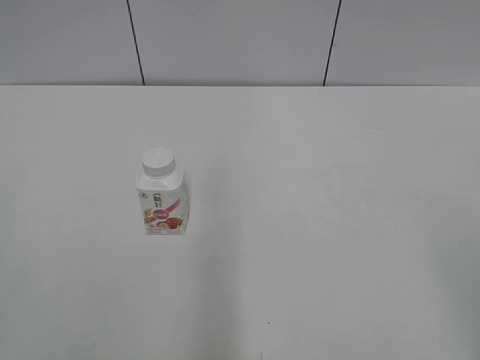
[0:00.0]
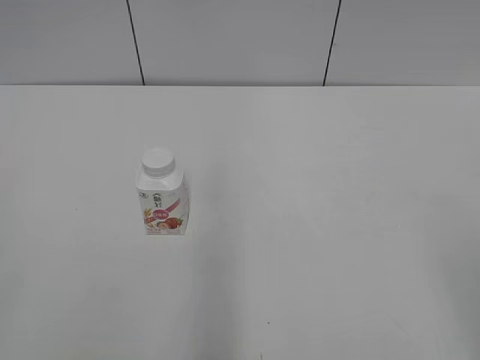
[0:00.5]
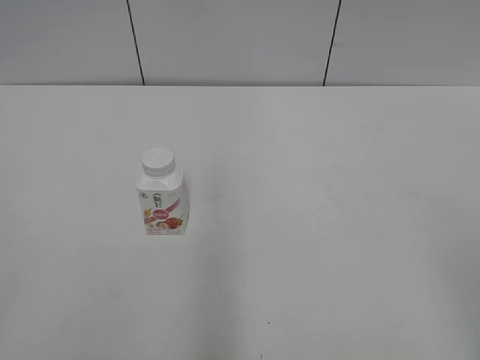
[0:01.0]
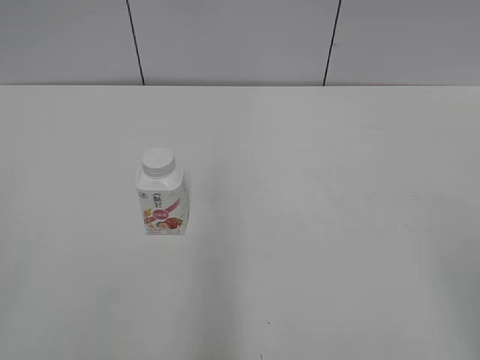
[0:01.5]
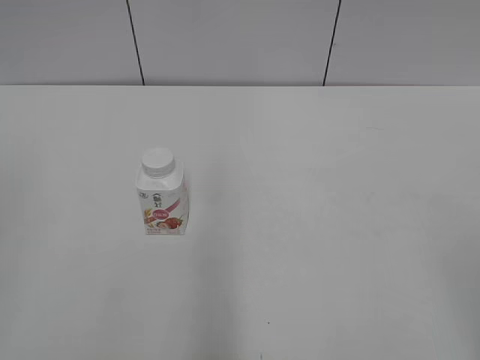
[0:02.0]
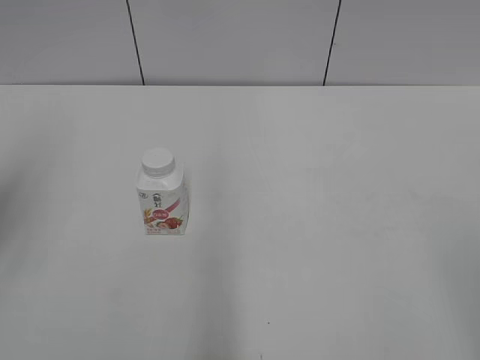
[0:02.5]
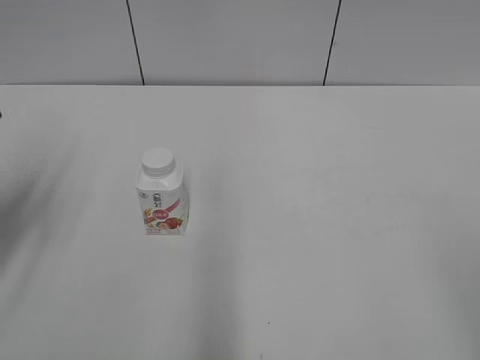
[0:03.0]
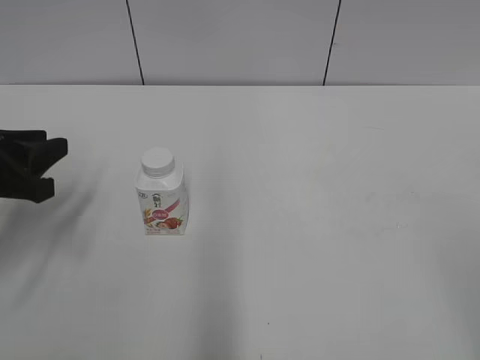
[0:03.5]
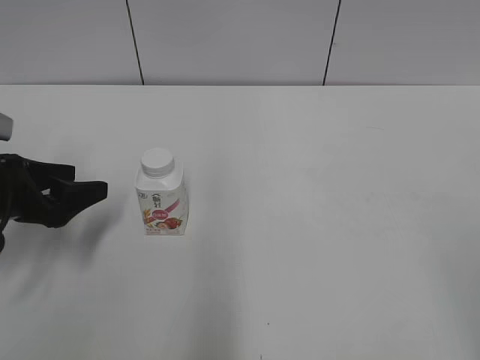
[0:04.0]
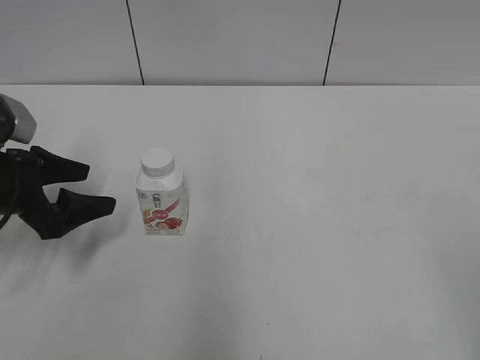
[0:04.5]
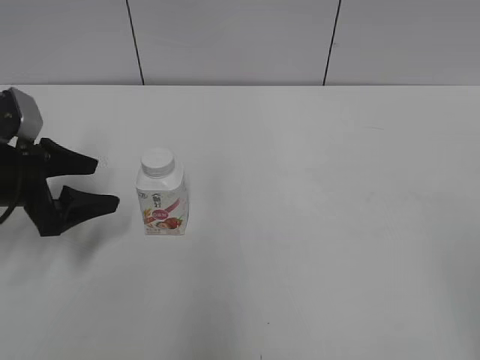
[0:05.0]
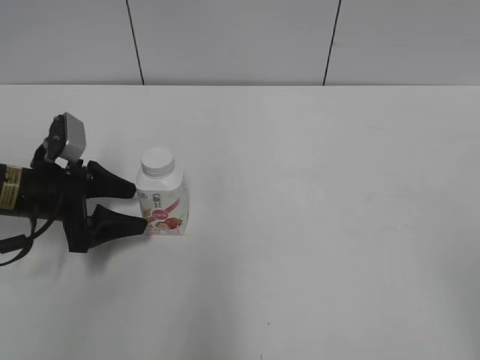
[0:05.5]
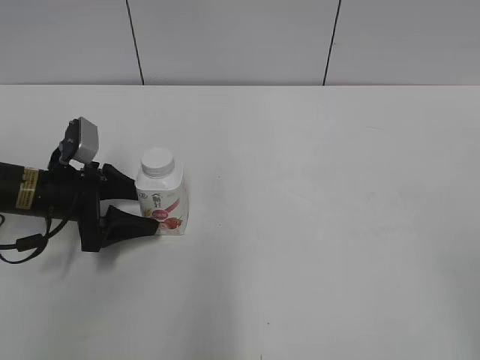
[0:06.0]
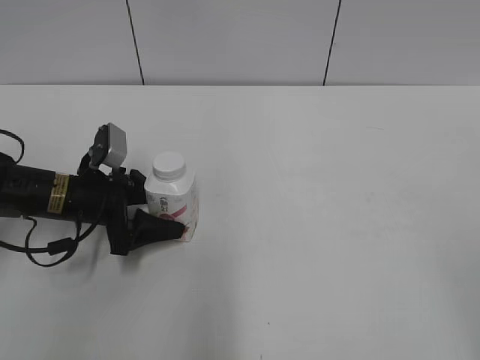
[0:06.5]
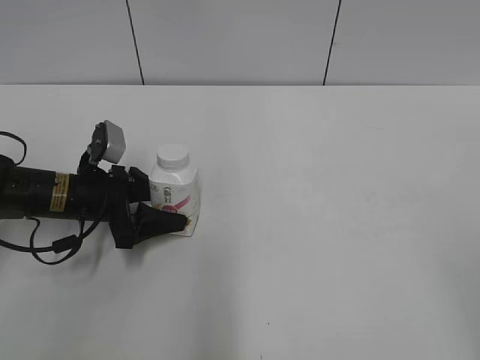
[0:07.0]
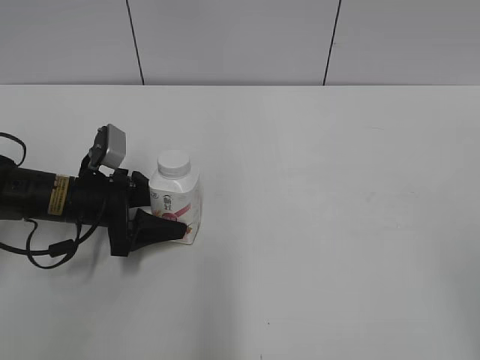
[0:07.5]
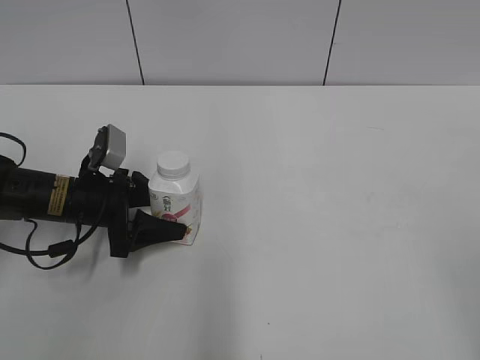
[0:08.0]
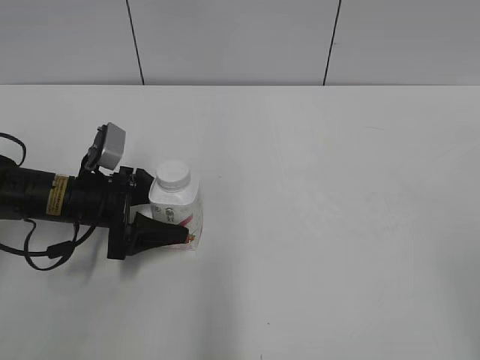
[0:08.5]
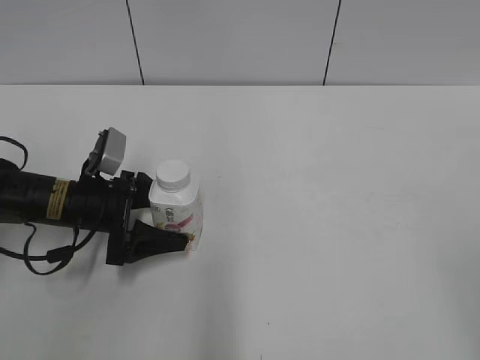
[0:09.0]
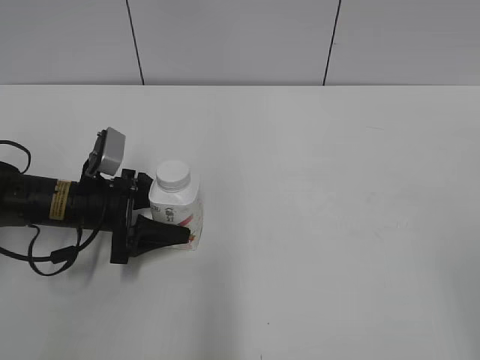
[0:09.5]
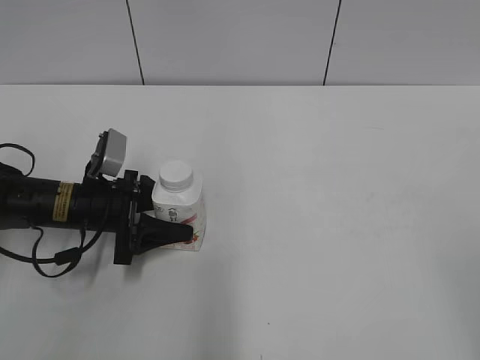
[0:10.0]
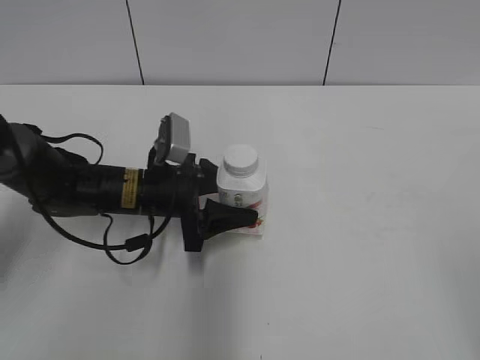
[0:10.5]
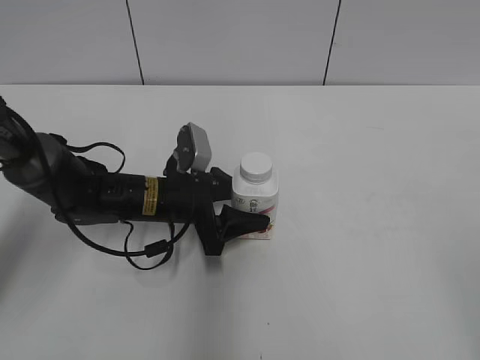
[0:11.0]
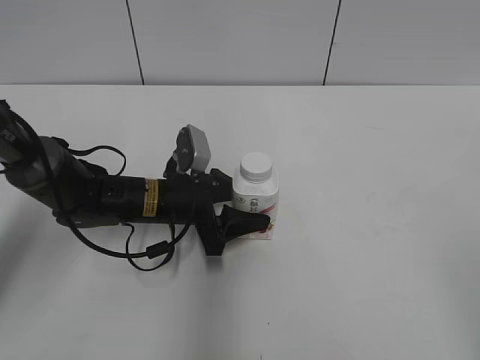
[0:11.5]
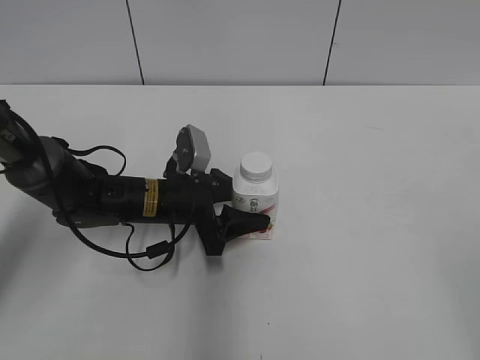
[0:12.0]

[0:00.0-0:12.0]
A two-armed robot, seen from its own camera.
Step, 0.0 to 10.0 s: Grab the Yili Changqing with the left hand.
2.0 to 4.0 s: The left gripper travels forward and downward by approximately 30 cm, and opens.
4.0 to 6.0 s: The left gripper shifts roughly 5 cm forward.
6.0 to 10.0 s: The grippers stay close to where they were, moving slightly.
10.0 to 12.0 s: The left gripper shifts roughly 10 cm to the right.

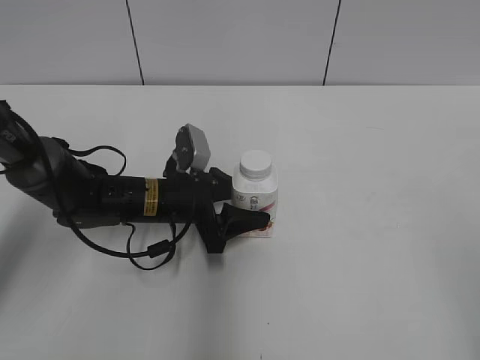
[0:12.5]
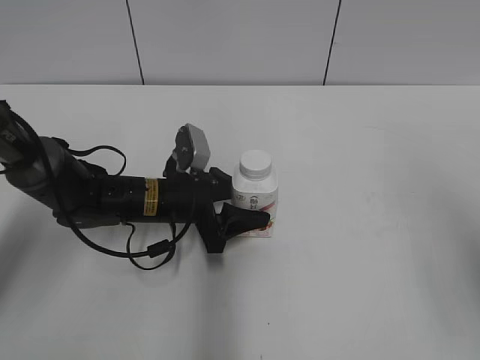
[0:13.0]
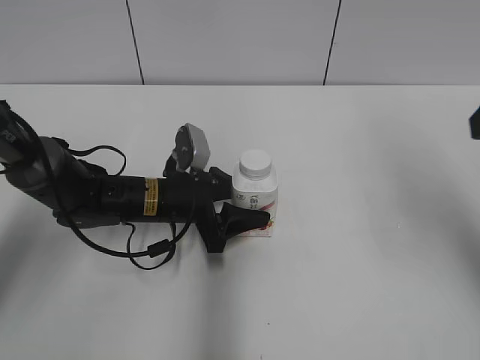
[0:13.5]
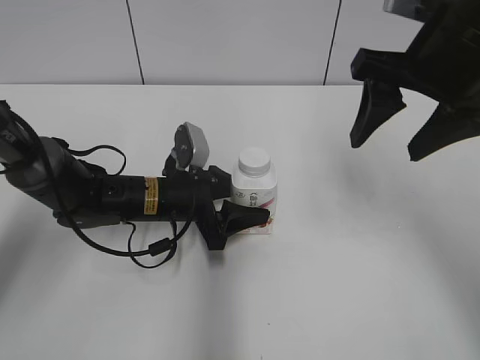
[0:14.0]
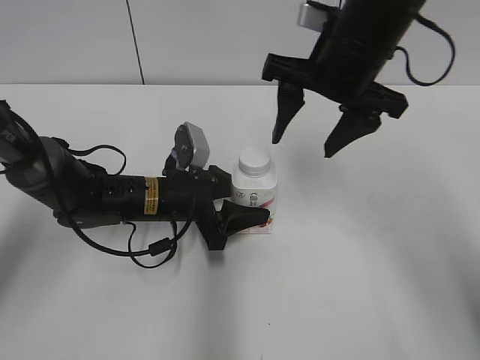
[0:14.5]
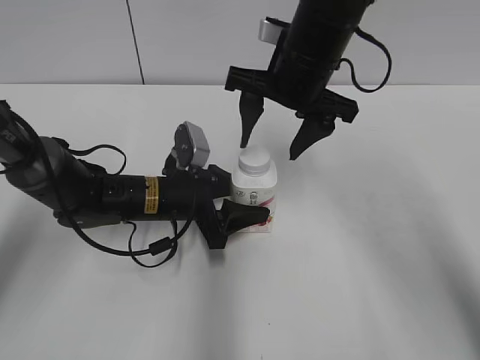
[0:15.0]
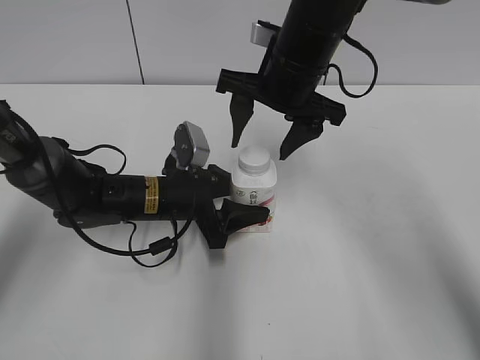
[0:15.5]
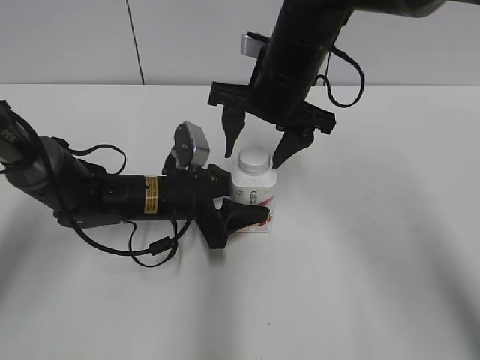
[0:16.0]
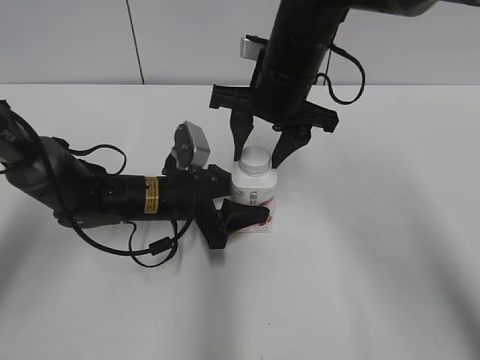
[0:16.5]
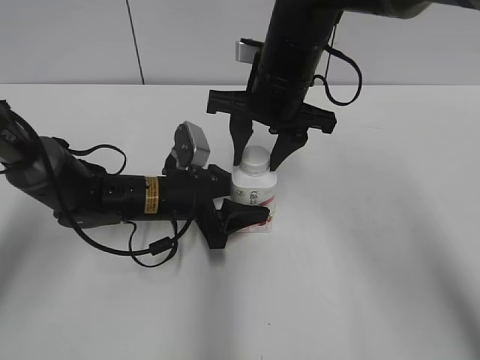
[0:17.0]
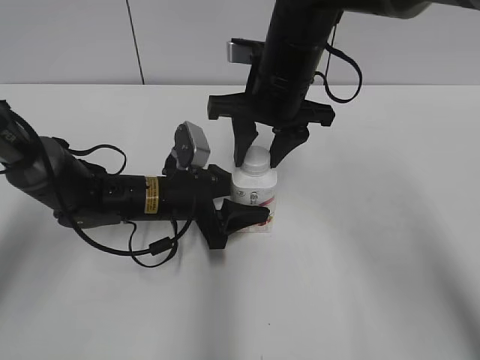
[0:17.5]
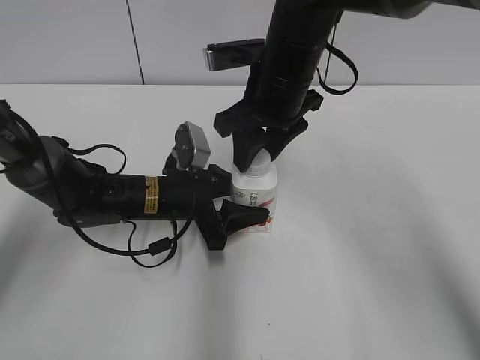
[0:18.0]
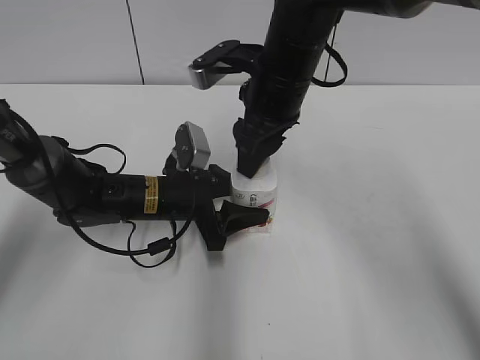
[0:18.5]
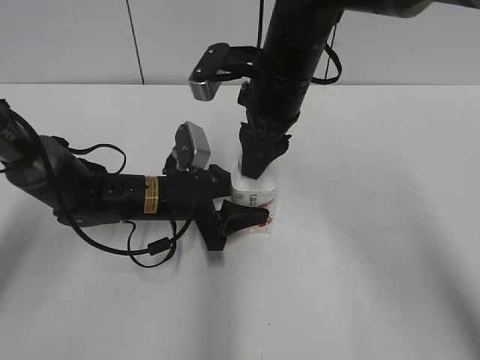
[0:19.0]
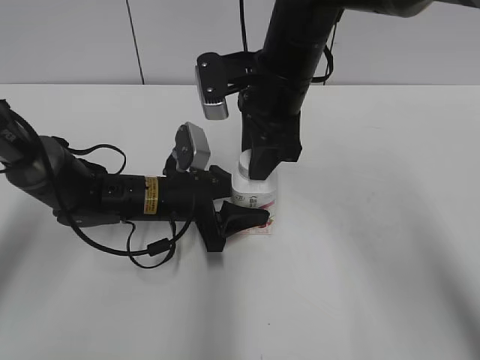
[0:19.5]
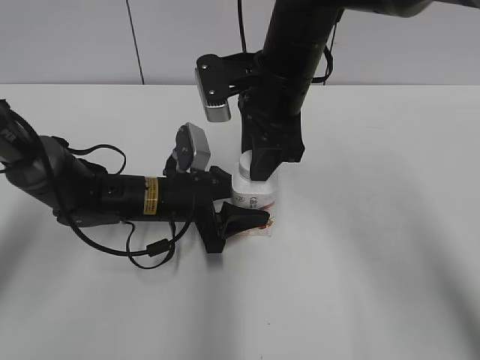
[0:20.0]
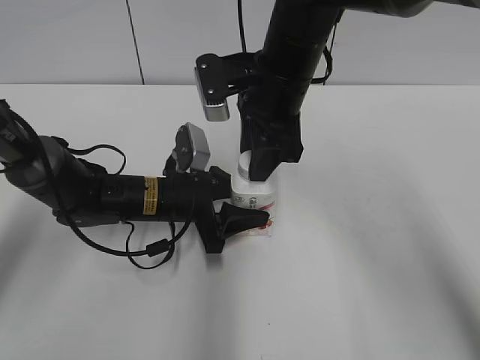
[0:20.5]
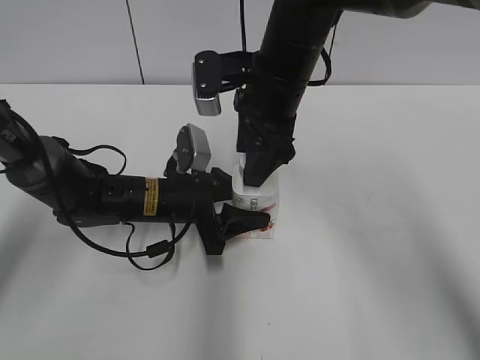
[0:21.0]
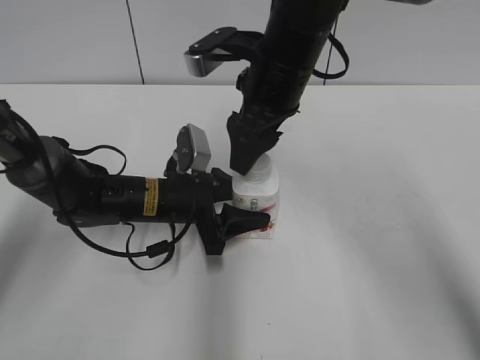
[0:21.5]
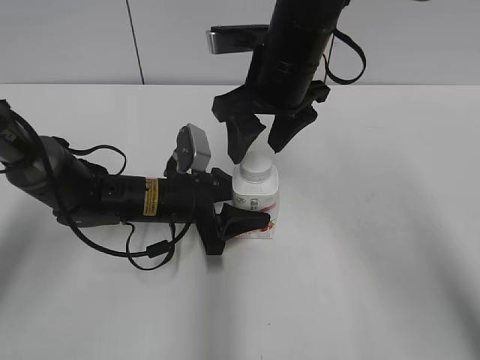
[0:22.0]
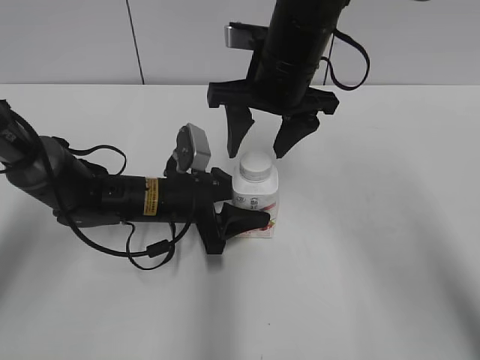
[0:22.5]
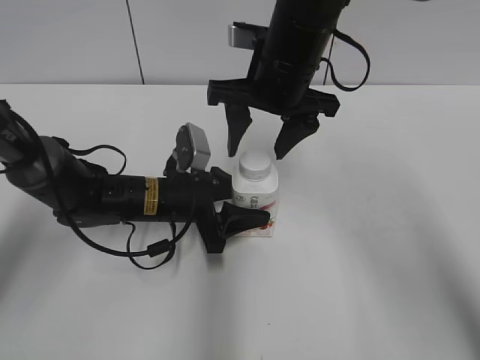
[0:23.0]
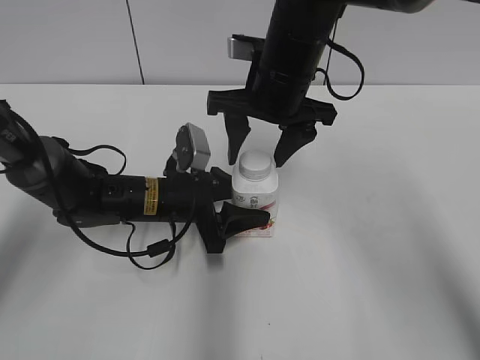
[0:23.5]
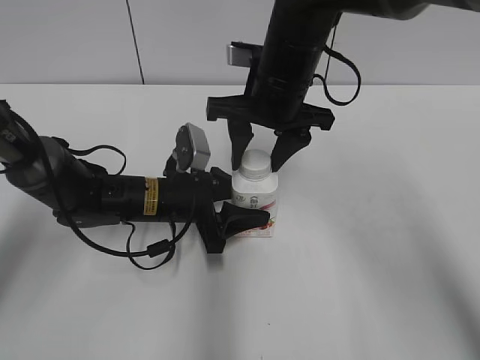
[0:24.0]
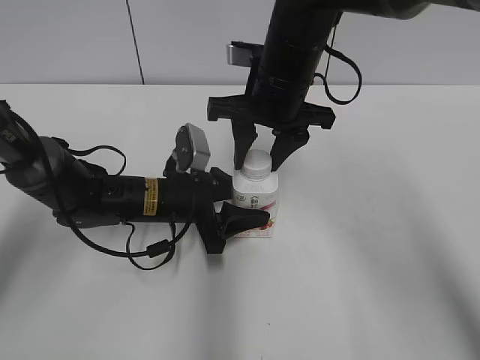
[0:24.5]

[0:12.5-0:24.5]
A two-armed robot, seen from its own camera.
12.5 to 14.5 s: The right gripper goes approximately 40 cm forward and to the left.
14.5 to 16.5 s: The right gripper heads to the left, covering about 5 cm, and closes.
20.5 to 22.5 s: The right gripper opens up.
22.5 to 24.5 s: The right gripper closes.

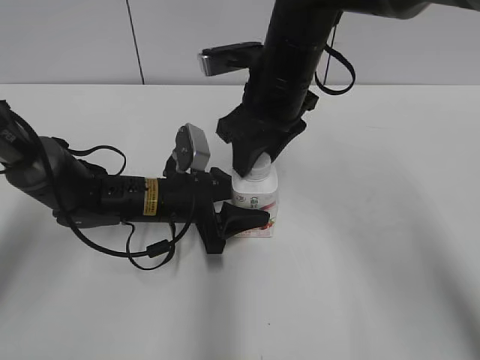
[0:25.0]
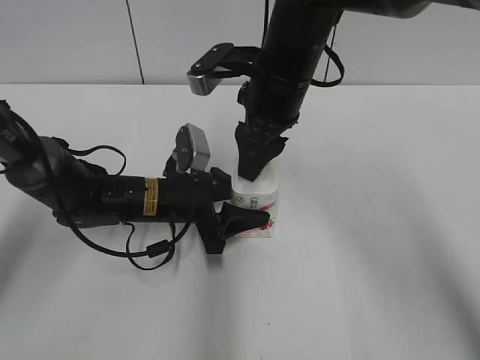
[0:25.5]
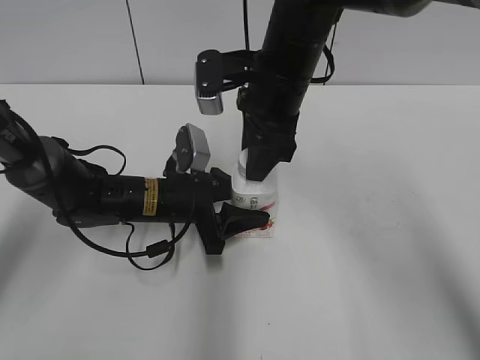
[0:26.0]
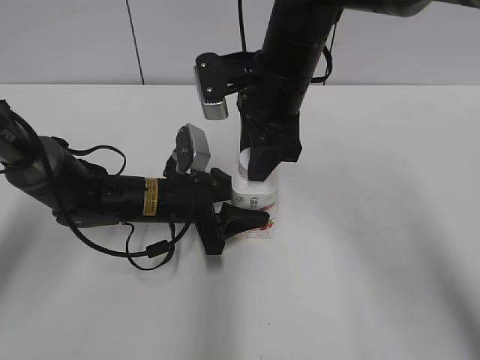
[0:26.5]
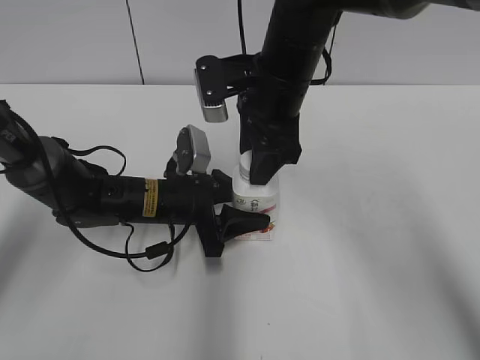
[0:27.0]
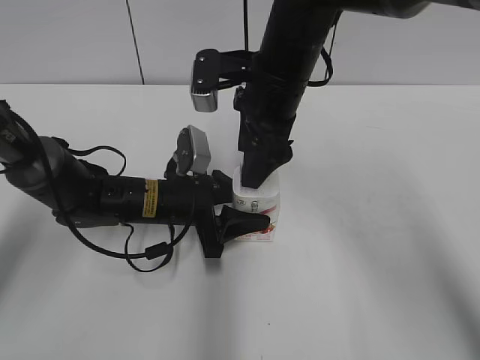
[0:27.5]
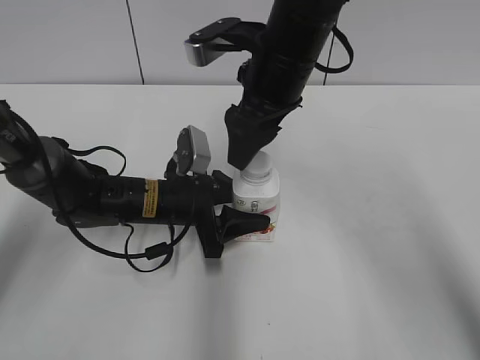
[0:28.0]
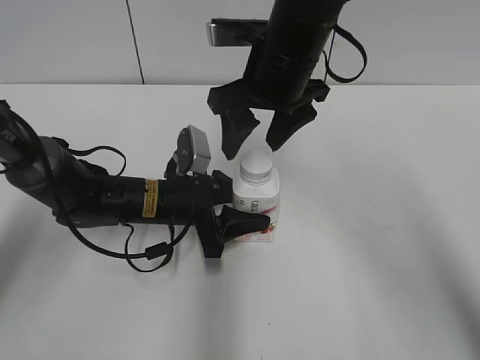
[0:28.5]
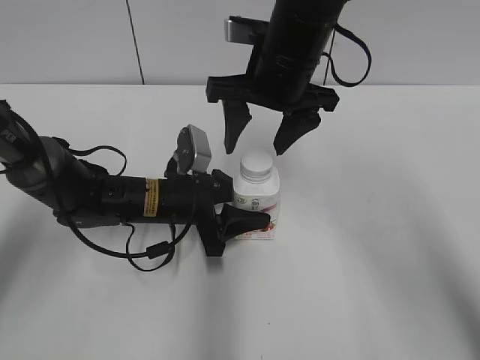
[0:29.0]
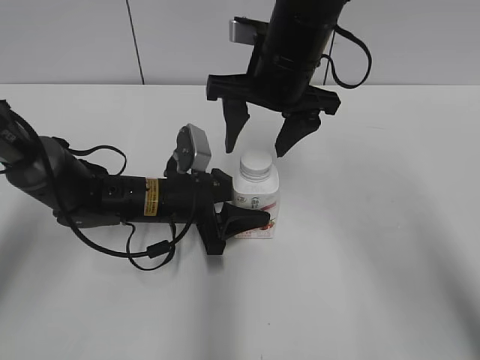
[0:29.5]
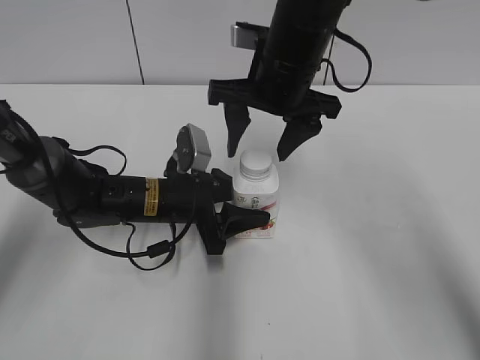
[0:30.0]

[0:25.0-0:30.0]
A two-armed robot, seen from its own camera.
25.0 to 27.5 s: The right gripper opens up.
